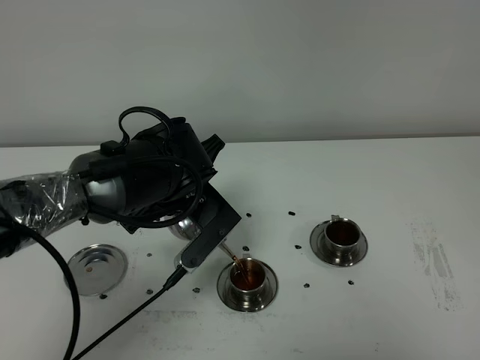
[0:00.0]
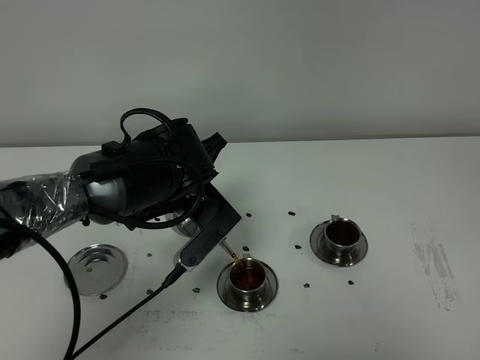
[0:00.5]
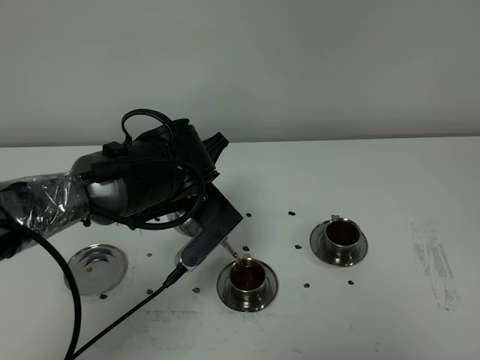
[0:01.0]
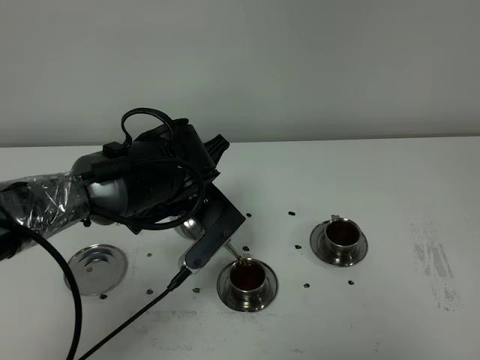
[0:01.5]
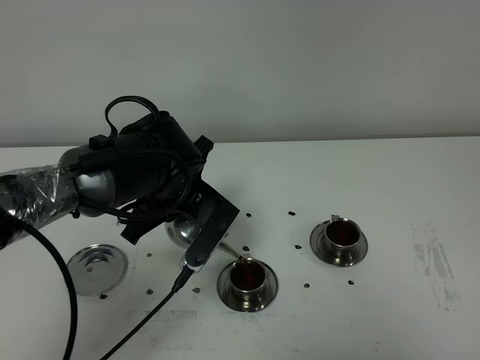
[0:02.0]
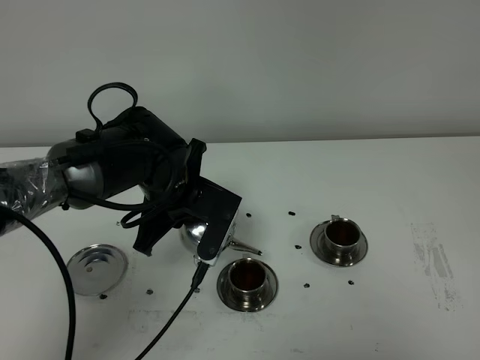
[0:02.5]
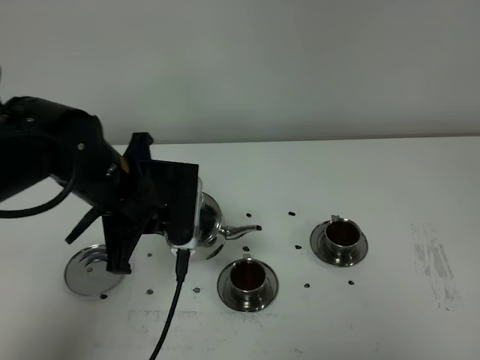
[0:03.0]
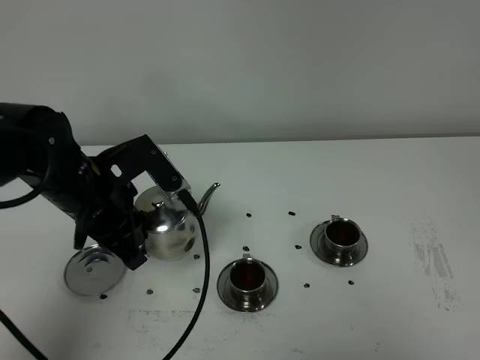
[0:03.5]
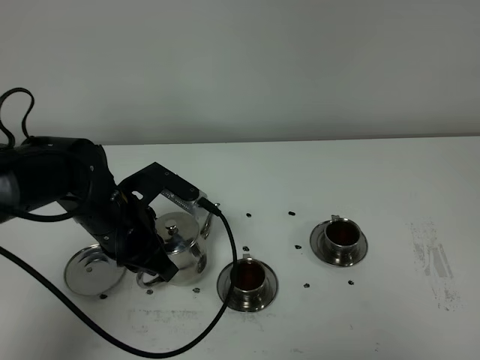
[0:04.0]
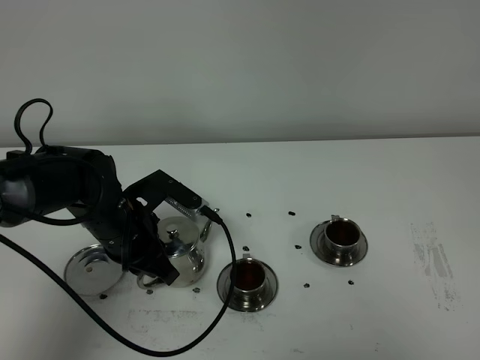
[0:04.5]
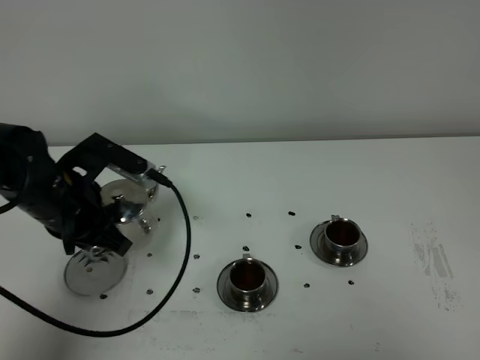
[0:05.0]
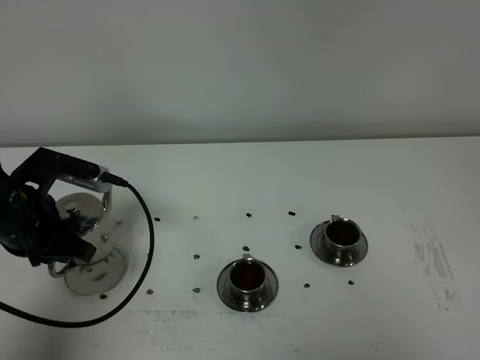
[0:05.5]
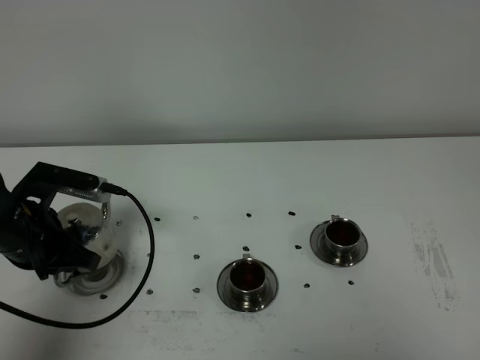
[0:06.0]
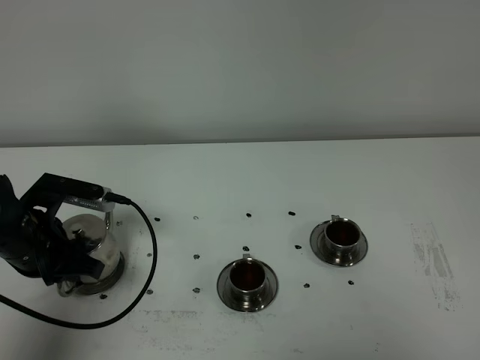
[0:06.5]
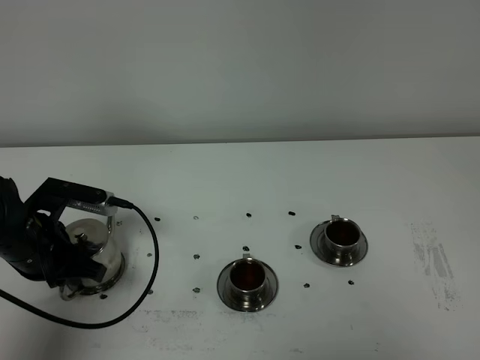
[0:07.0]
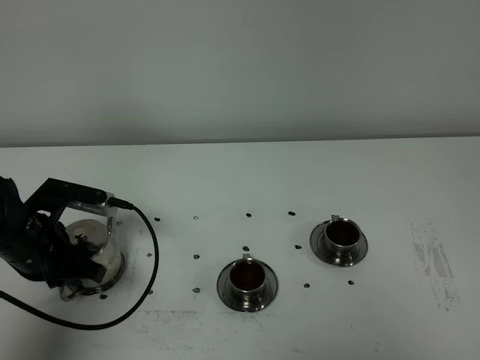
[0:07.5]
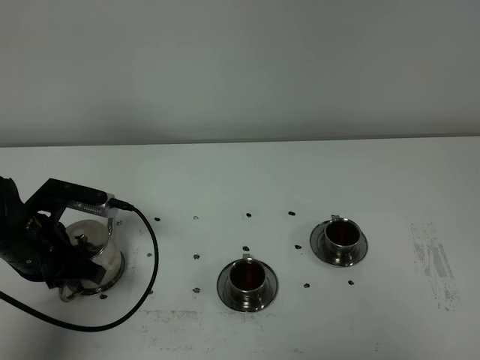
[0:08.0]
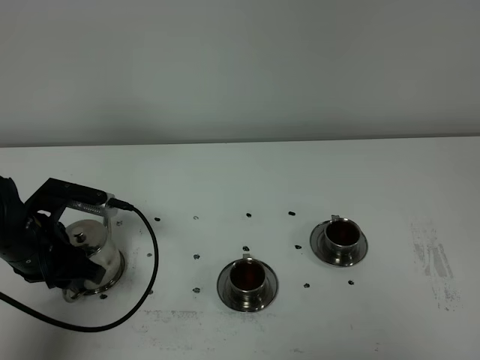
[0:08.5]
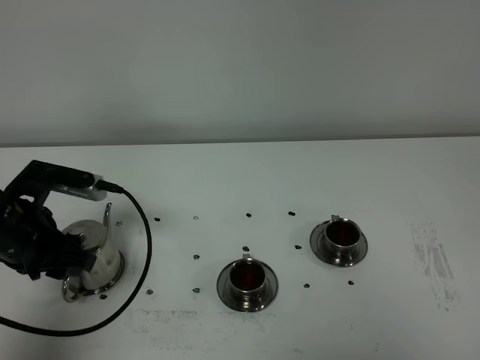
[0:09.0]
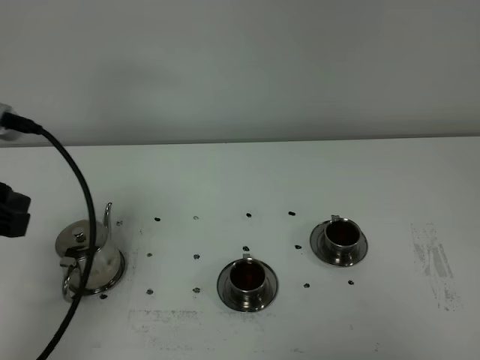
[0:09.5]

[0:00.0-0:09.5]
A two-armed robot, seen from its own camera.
Task of the whole recording: grasp the stainless steel teapot and pour the tea into the two stainless steel teacups one by one, put the stainless steel teapot back in its original place.
Step, 0:00.0 to 0:02.5: Pour tea into the teacup with the left gripper.
0:00.0 to 0:02.0: The grippers move only a little.
0:02.0 to 0:04.0: The left gripper goes roughly 10 cm to the left.
0:04.0 to 0:05.5: The left gripper heads to the left, covering some 10 cm.
0:05.5 to 0:07.5: There are only small adjustments of the grippers.
0:07.5 to 0:09.5: The left gripper heads upward and backward, covering approximately 20 cm, and opens its fingers.

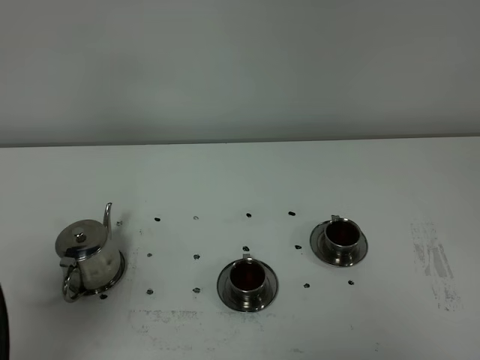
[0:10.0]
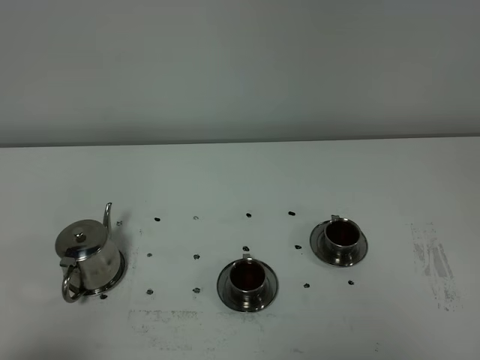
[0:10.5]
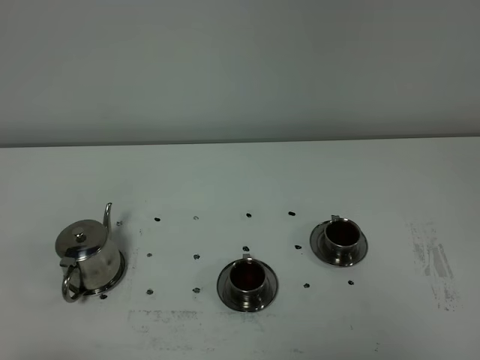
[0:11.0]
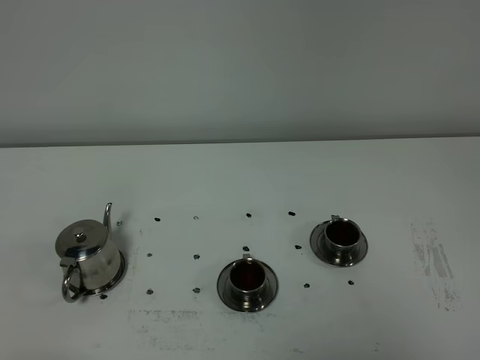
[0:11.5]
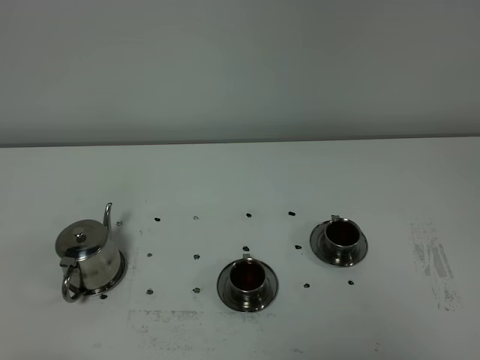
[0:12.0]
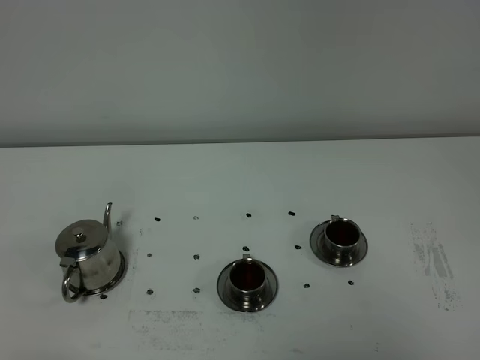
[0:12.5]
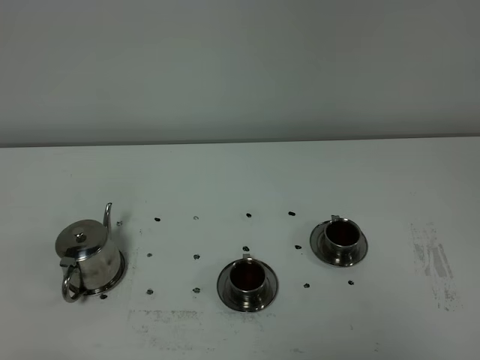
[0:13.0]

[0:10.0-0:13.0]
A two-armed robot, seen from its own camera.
Task of the whole recording: grasp the stainless steel teapot and pour the tea into the two stainless steel teacups one by one, put the stainless steel teapot back in its original place.
0:10.0 to 0:11.5: The left gripper goes about 20 cm downward and backward.
0:11.5 to 0:13.0: The two grippers keep their place.
